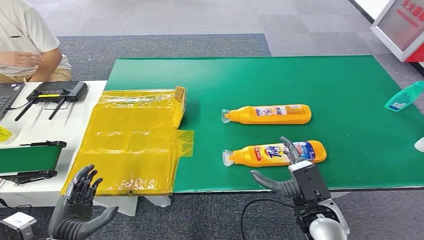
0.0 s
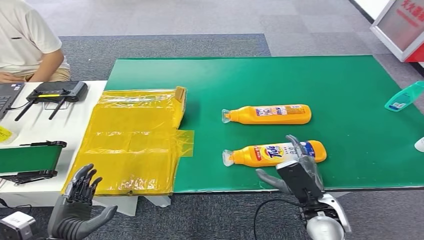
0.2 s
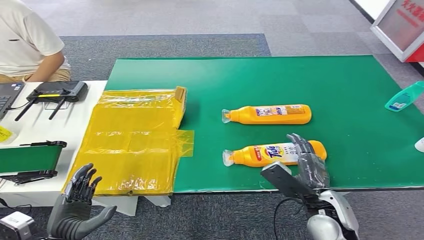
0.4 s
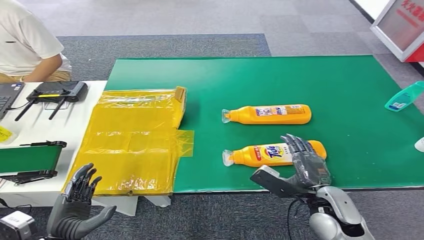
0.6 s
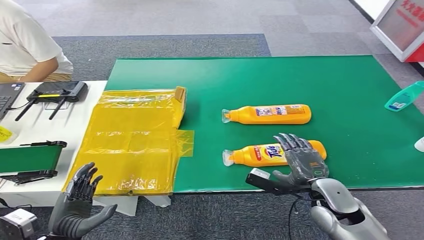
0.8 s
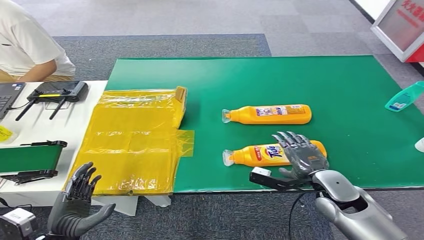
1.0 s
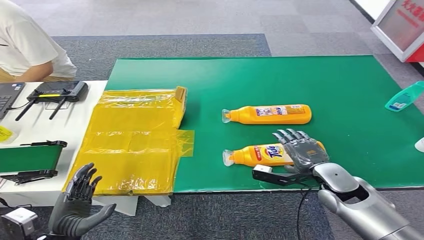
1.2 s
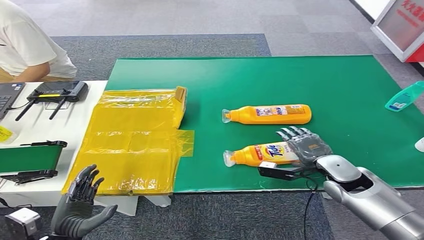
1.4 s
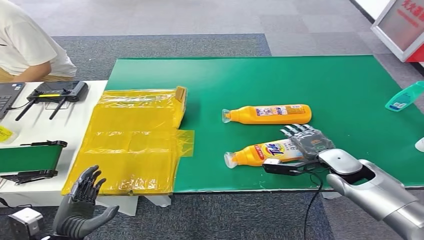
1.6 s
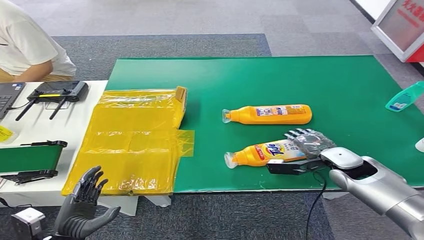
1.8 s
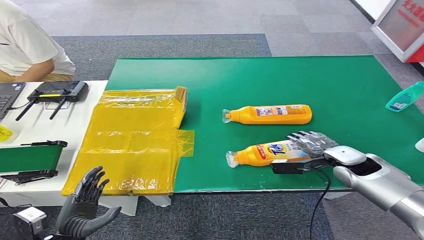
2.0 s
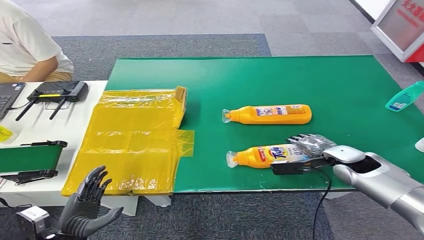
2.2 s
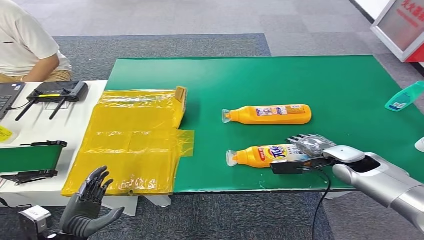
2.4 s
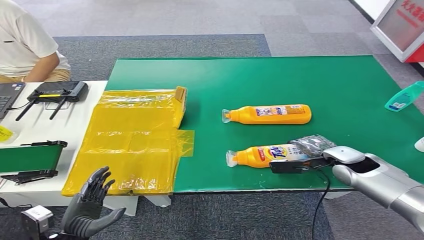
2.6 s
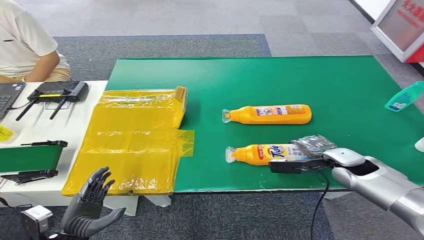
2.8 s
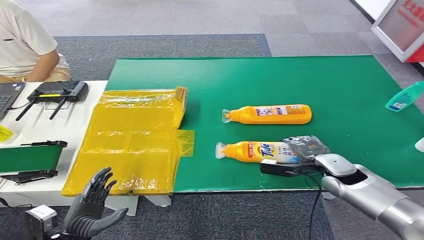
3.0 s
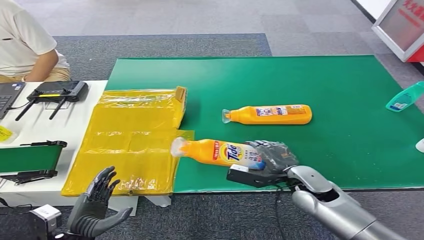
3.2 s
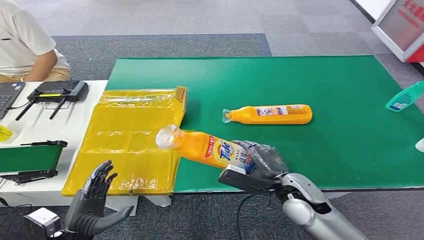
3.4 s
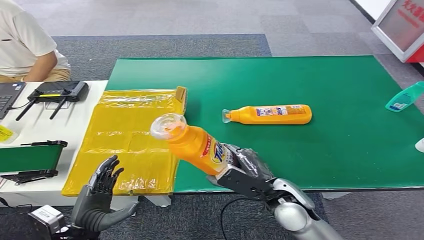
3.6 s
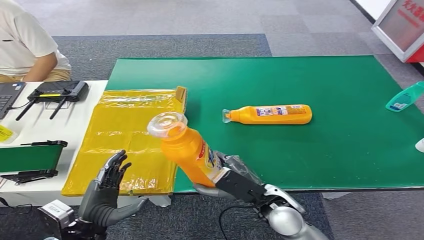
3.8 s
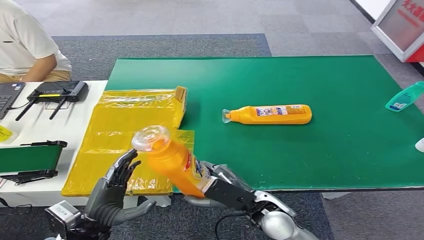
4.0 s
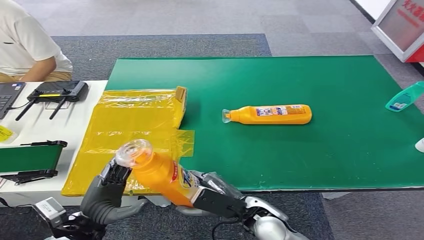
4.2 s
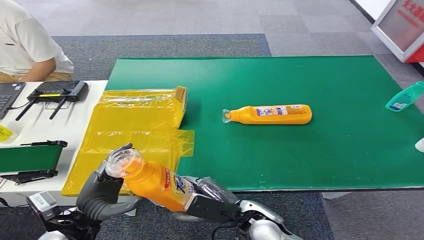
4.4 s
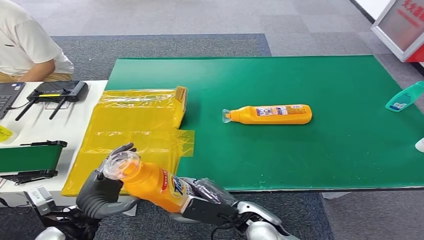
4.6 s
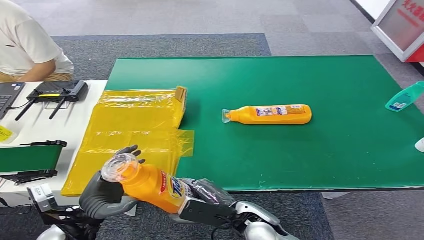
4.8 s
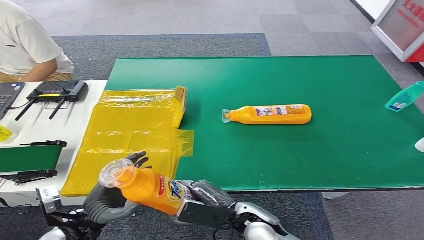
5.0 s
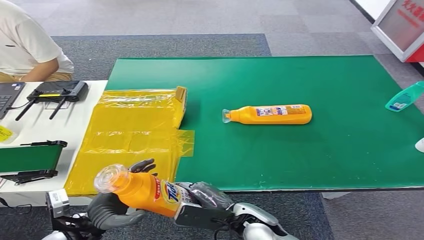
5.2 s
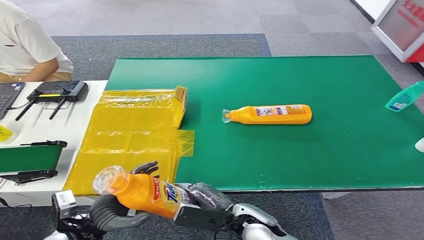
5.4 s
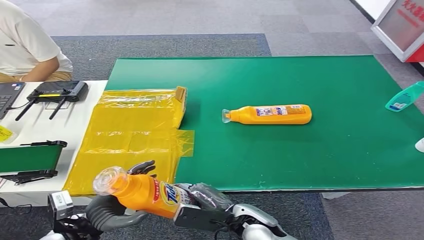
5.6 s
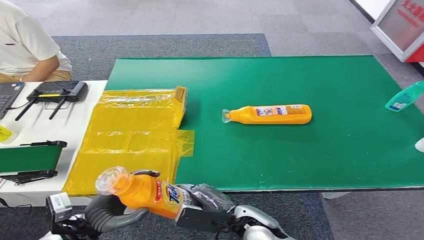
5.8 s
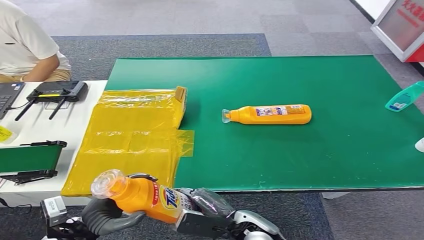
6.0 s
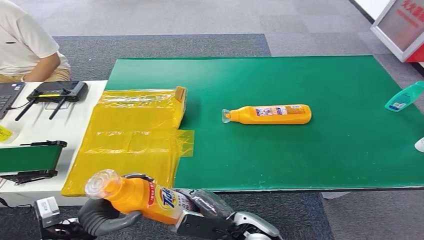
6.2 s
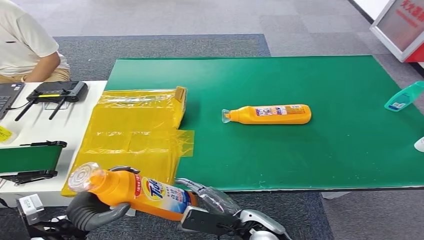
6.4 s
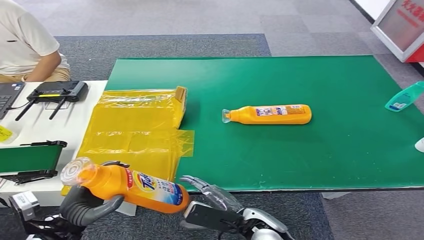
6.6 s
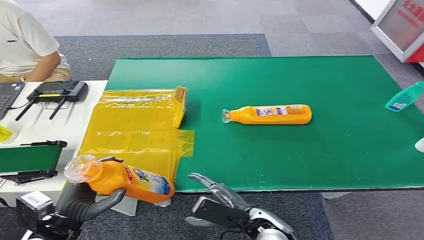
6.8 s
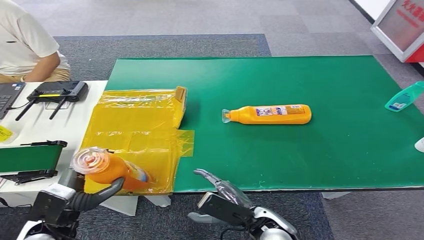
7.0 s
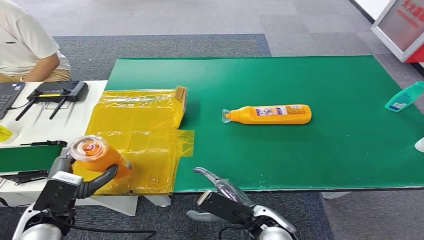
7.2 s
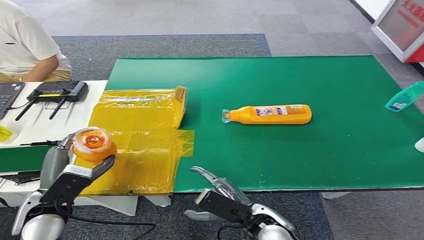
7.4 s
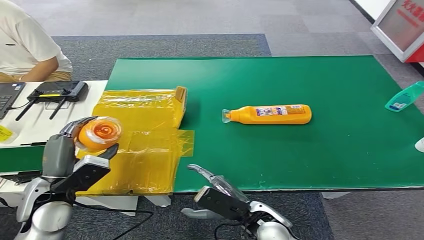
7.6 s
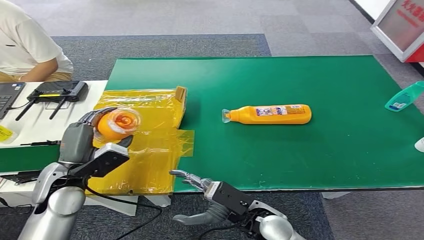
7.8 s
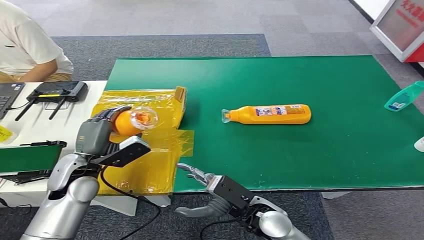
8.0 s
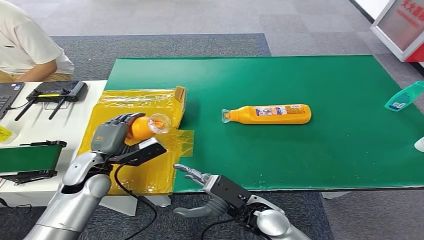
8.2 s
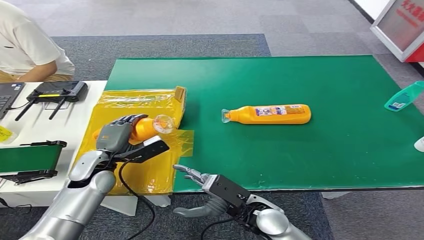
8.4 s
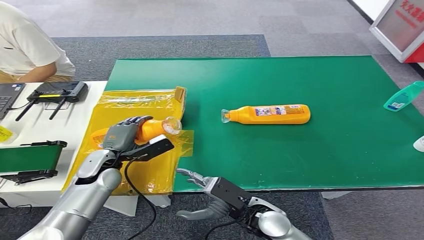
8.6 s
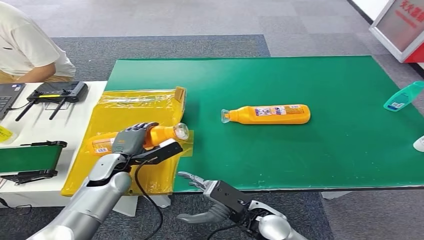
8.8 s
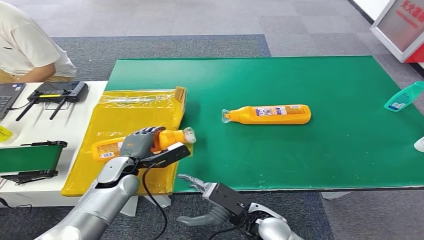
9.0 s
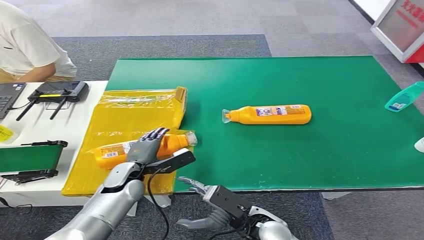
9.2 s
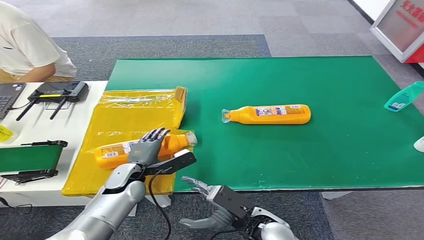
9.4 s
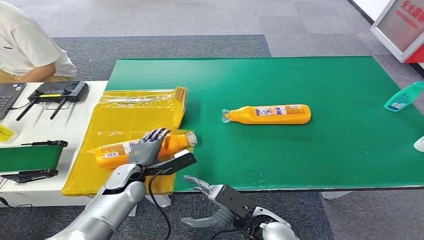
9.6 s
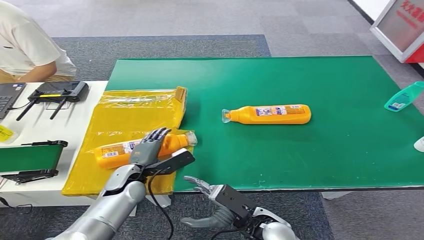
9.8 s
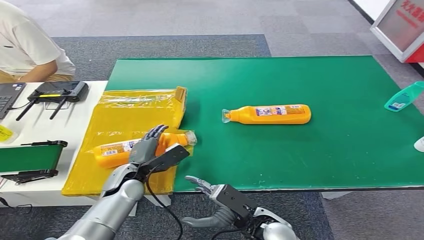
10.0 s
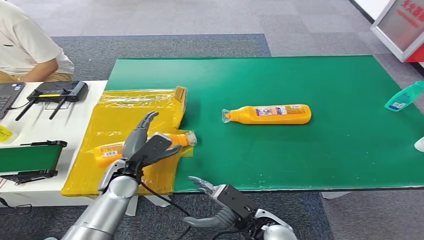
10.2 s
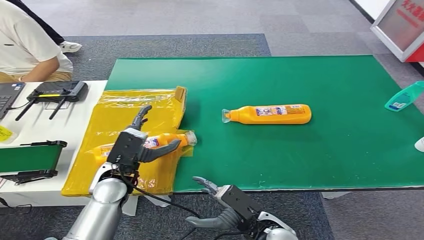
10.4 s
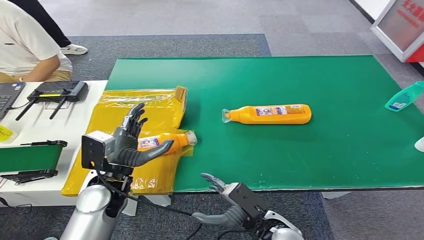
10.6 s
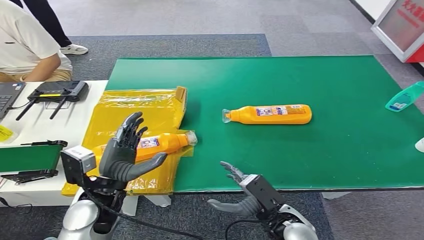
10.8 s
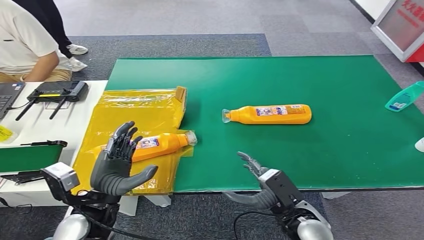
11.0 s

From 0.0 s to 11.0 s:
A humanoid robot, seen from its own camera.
Step, from 0.0 s to 5.6 s: Pick up the bottle from the table.
Step, from 5.8 s to 11.0 s: Turn the bottle to the front side.
From 1.6 s to 3.2 s: The right hand travels to the left by approximately 5 cm.
From 3.2 s to 4.8 s: The right hand is displaced to the left and backward by roughly 15 cm, while the left hand moves forward, about 5 cm.
From 4.8 s to 6.2 s: The hands move only a little.
From 6.2 s to 7.8 s: The left hand shifts roughly 15 cm forward and upward.
From 7.8 s to 9.4 s: The left hand heads downward, to the right and forward, covering some 15 cm.
From 9.4 s to 11.0 s: The left hand moves backward and upward, some 15 cm, while the right hand shifts approximately 5 cm to the right.

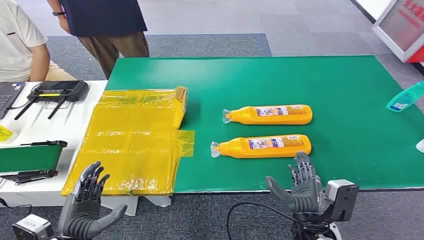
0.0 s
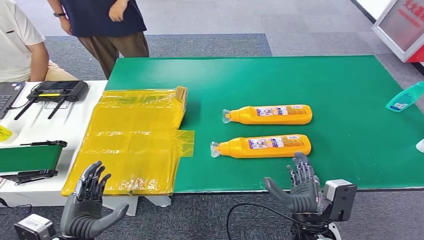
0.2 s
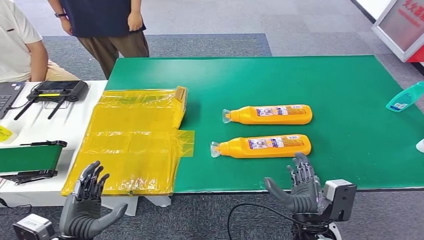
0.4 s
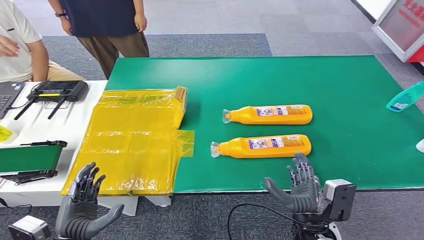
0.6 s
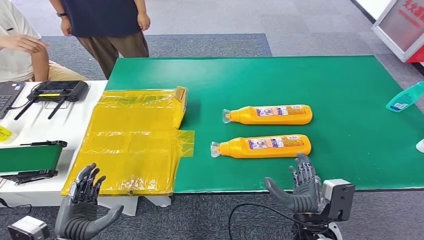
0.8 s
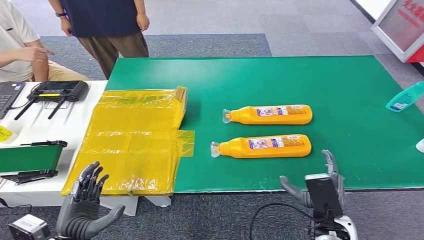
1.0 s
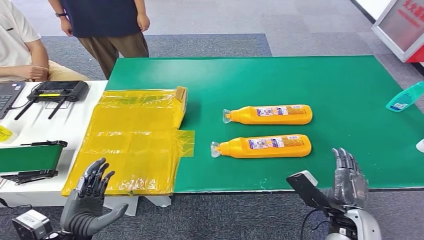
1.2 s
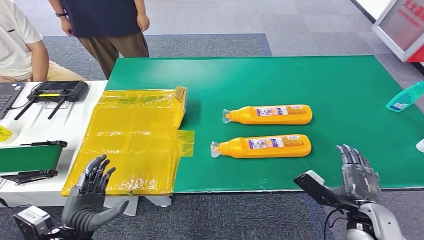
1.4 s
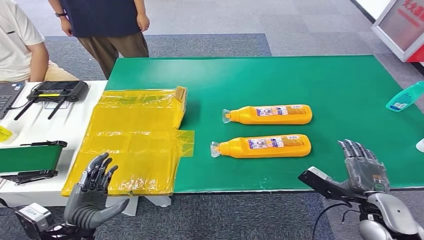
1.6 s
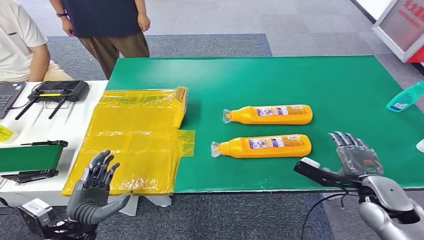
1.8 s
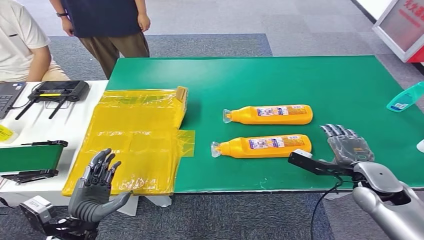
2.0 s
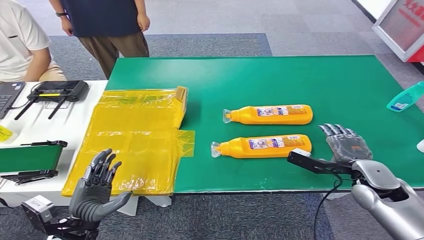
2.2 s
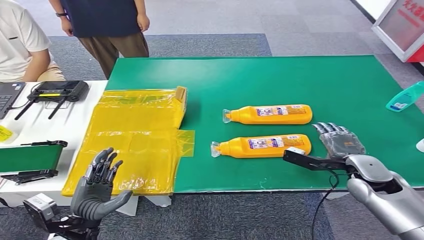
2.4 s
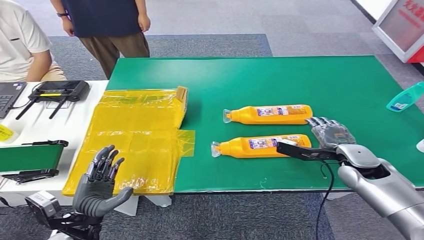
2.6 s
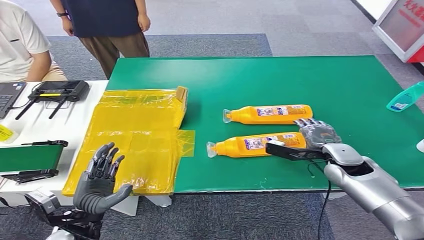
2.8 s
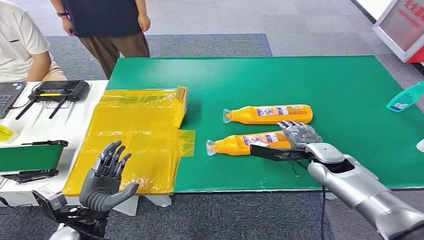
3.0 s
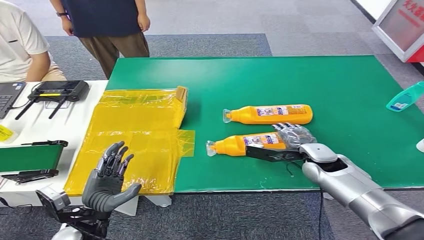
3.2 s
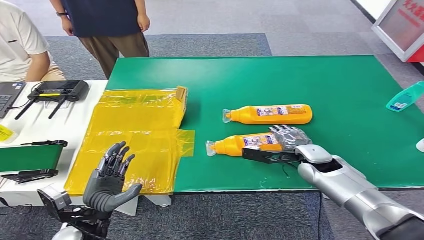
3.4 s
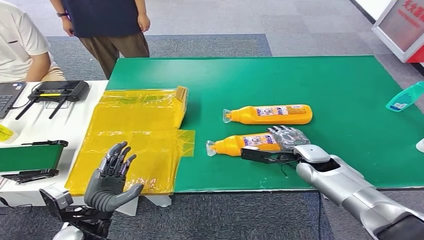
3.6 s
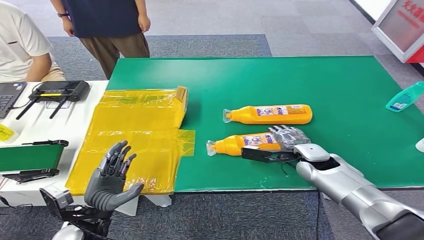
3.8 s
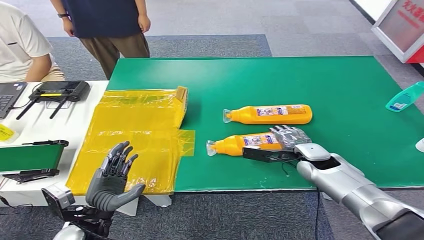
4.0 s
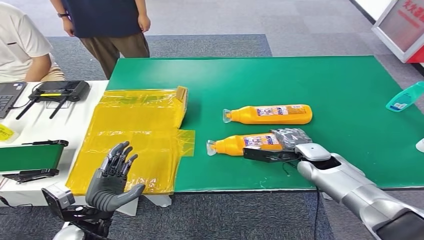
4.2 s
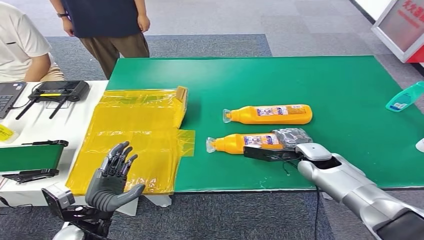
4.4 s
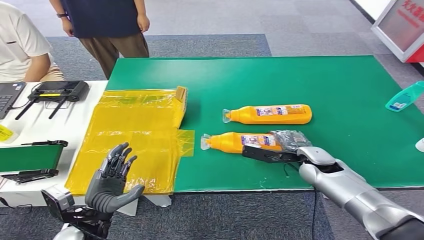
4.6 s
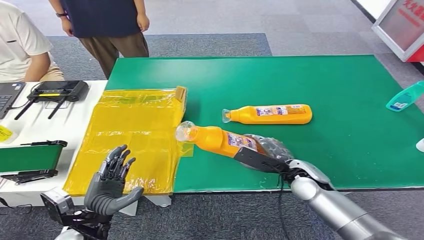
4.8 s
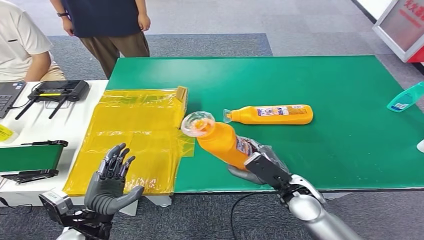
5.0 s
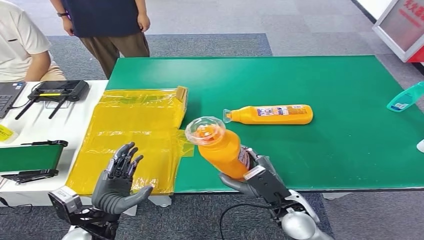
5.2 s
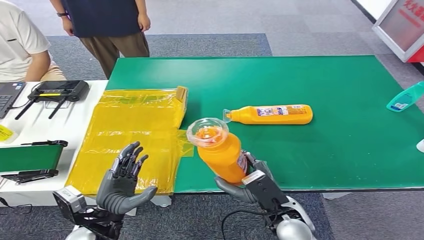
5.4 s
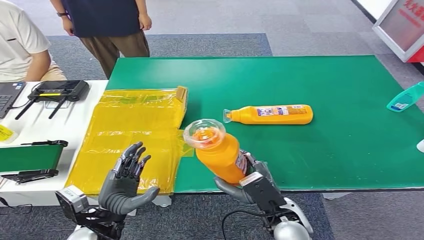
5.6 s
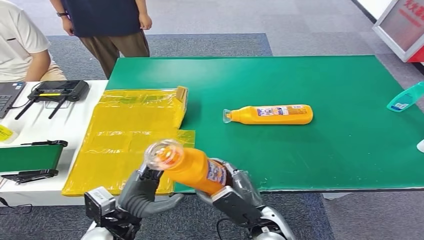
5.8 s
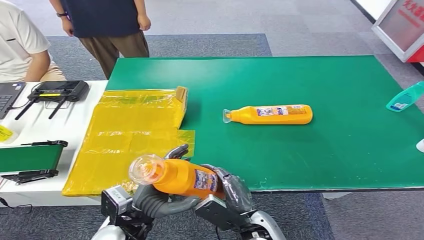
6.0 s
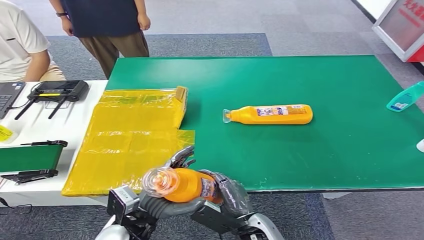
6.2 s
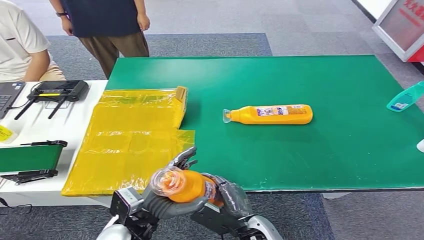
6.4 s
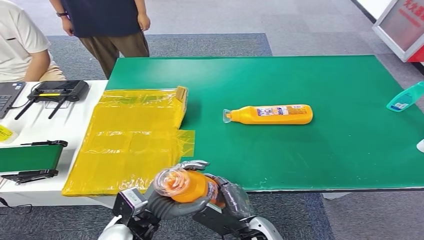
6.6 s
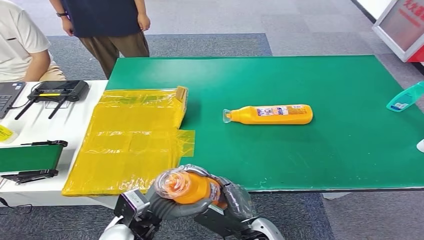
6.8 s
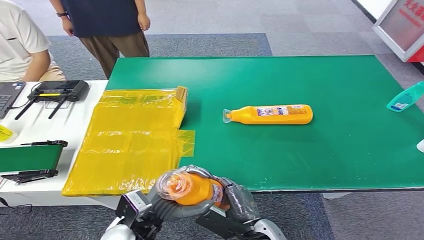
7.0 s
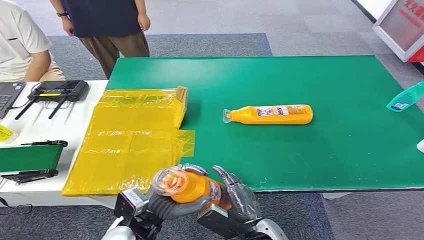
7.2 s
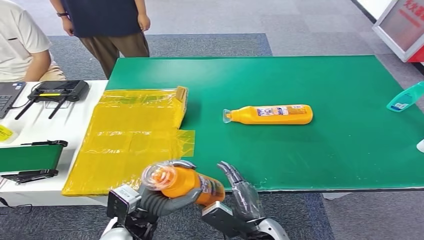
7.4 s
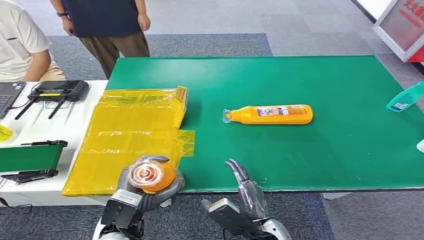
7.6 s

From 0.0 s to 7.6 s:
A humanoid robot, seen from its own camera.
Step, from 0.0 s to 4.8 s: Pick up the bottle from the table.
From 1.6 s to 3.0 s: The right hand travels forward and to the left by approximately 20 cm.
From 3.0 s to 4.6 s: The hands stay close to where they were, moving slightly.
From 4.6 s to 6.0 s: The right hand goes approximately 25 cm backward and to the left. Meanwhile the left hand goes approximately 10 cm to the right.
